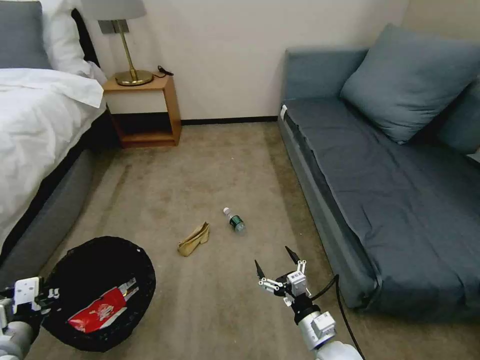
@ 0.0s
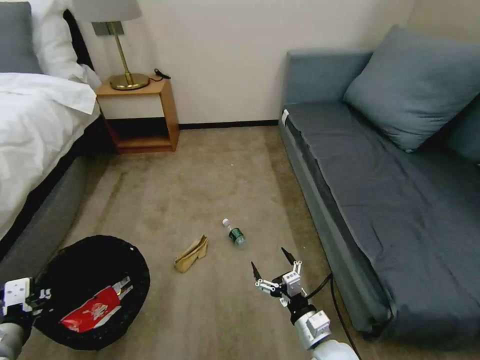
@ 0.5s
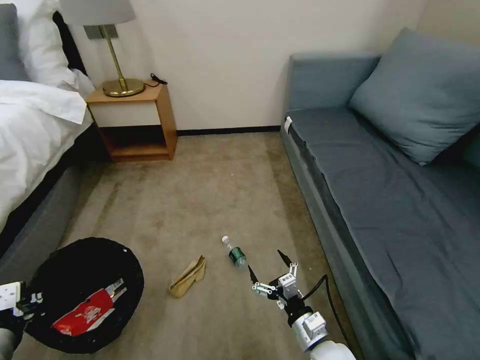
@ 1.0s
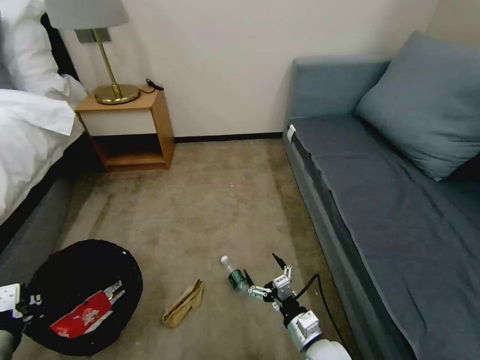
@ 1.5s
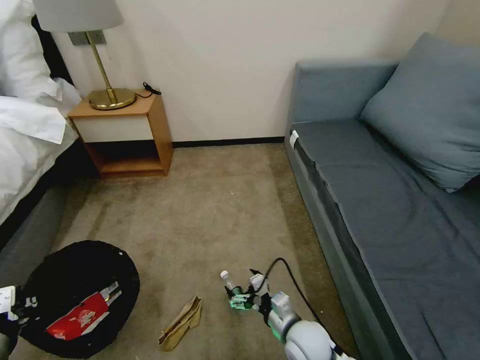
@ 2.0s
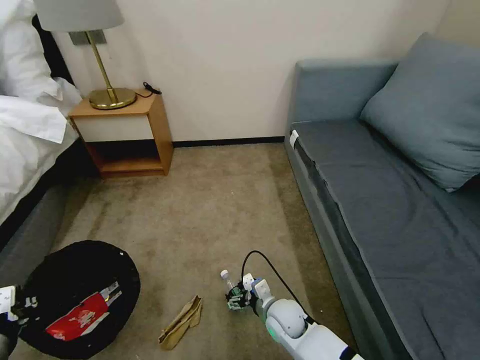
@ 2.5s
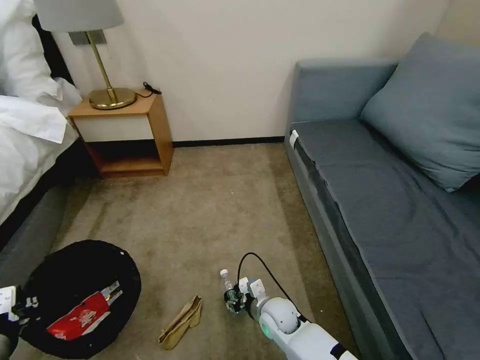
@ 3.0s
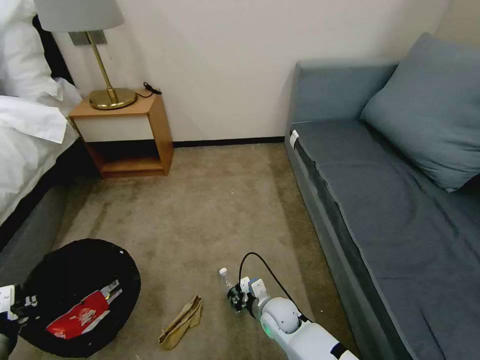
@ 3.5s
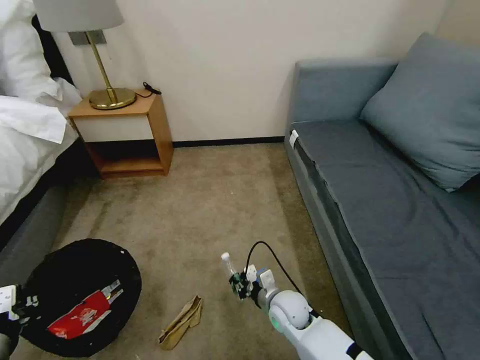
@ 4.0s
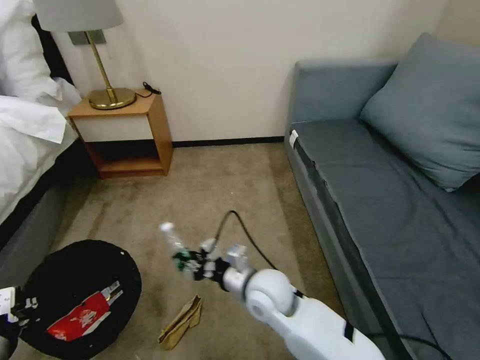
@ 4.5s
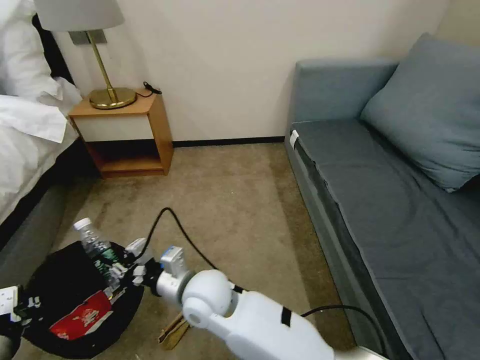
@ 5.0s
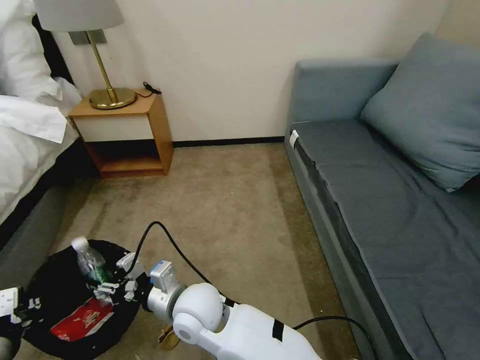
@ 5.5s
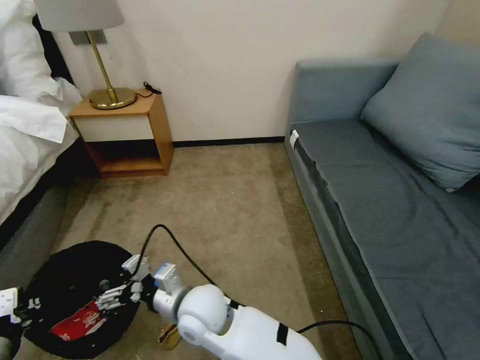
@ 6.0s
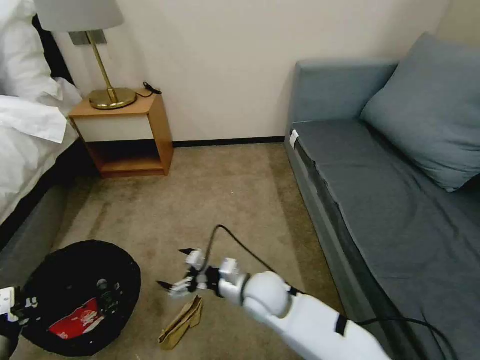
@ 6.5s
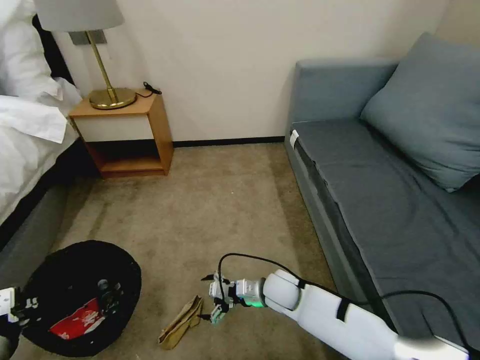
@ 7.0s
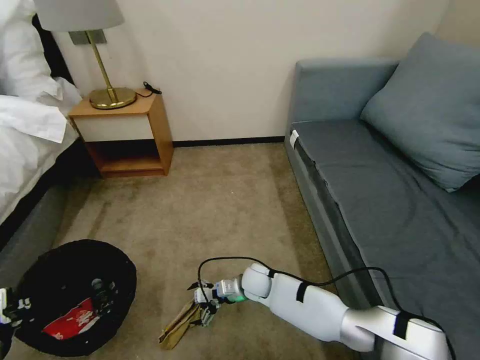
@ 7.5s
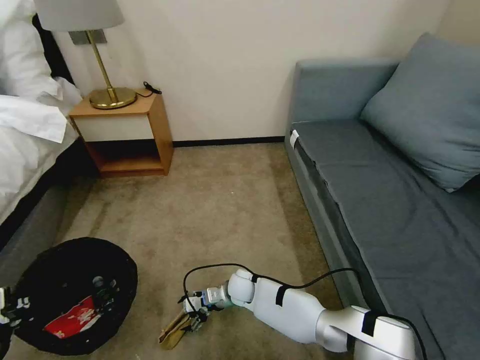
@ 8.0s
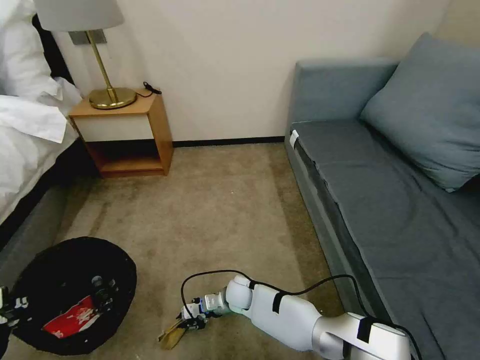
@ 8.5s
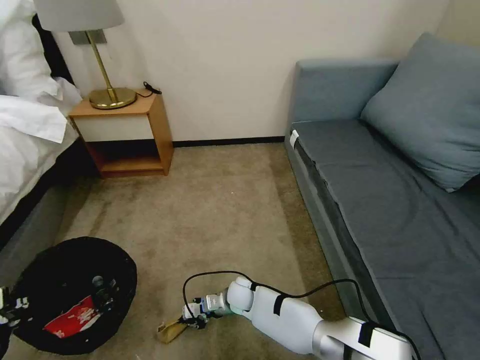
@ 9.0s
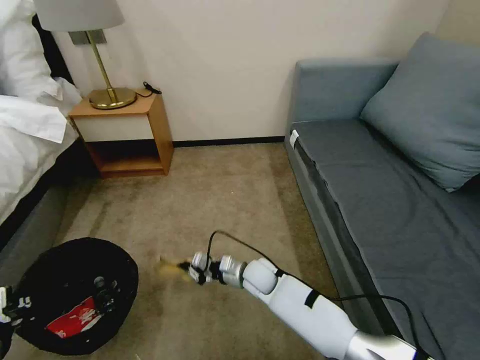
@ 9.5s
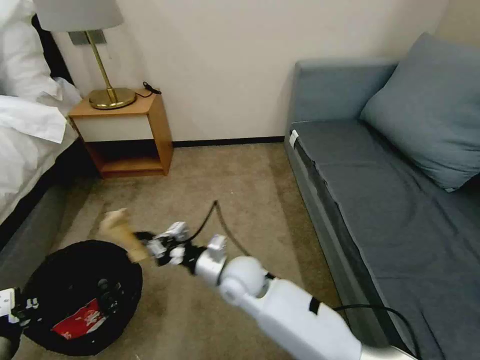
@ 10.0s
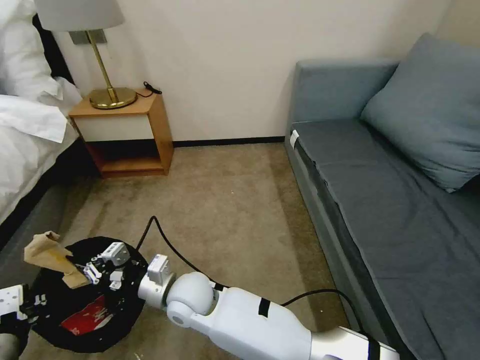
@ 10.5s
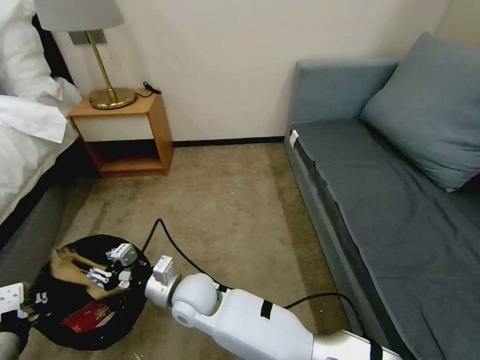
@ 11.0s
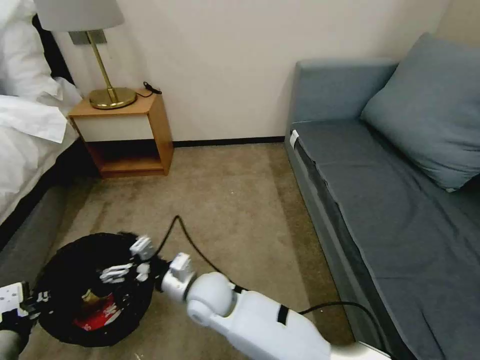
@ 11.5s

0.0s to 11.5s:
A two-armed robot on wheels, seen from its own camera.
Task of the whole recording: Pick up the trash bin, then pick up the garbage on the floor and place it into the trash bin.
0.0s to 2.0s: The right gripper travels to the left by about 5 cm.
2.0s to 4.0s: The right gripper travels forward by about 10 cm, and closes up.
4.0s to 6.0s: The right gripper is displaced to the left and upward by roughly 25 cm, and opens up.
6.0s to 7.5s: The right gripper goes some 25 cm downward, to the right and forward.
7.5s to 9.5s: The right gripper closes its fingers.
9.5s to 11.5s: The right gripper travels to the left, upward and backward by roughly 20 cm, and opens its fingers.

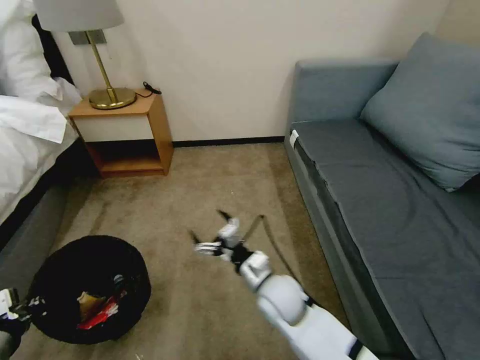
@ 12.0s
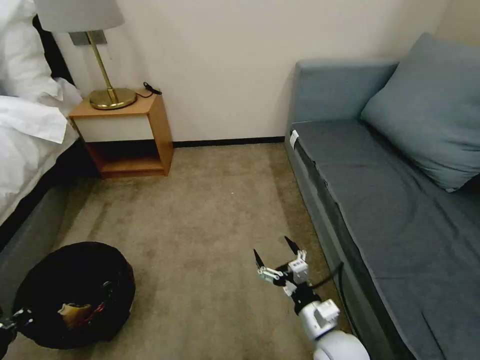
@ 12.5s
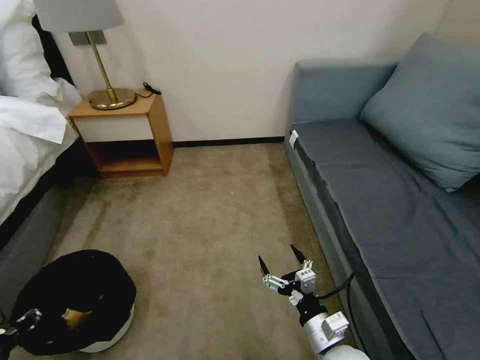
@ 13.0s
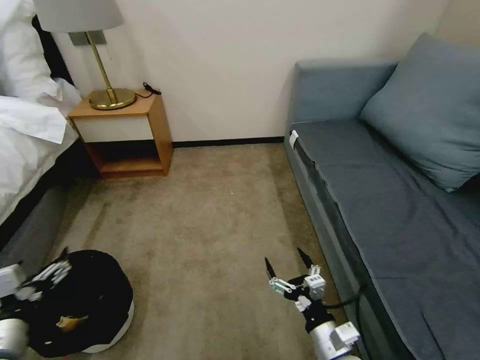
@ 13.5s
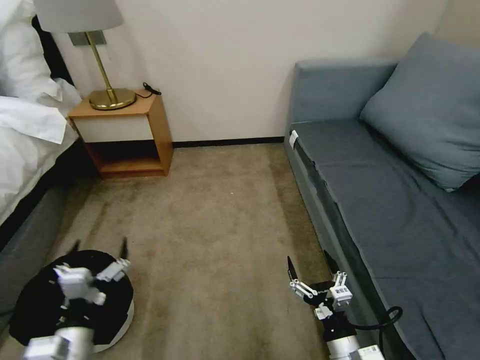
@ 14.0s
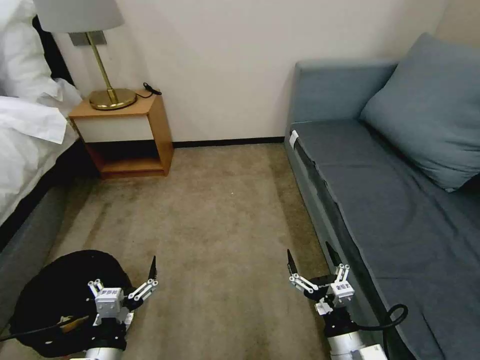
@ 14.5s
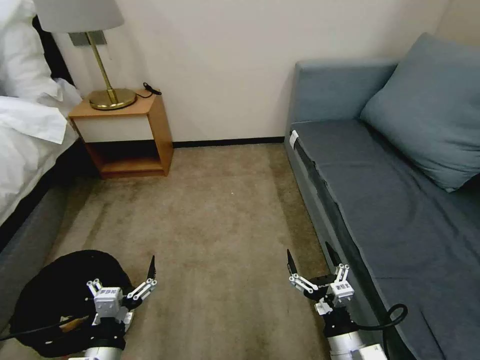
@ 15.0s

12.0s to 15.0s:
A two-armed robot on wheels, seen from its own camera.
Task of the whole recording: Pick up the trash bin, then pick up the garbage on the floor and place it into the trash bin.
12.0s to 13.5s: The right gripper goes about 20 cm backward and to the right. The left gripper opens its fingers.
13.5s to 15.0s: The left gripper heads to the right and downward, covering some 15 cm.

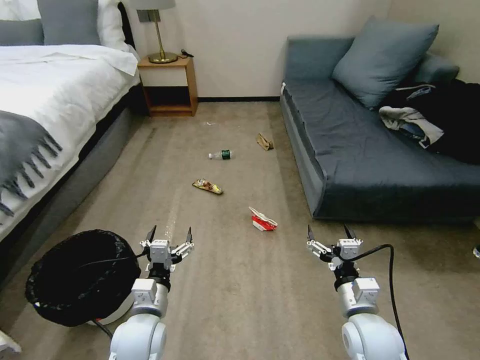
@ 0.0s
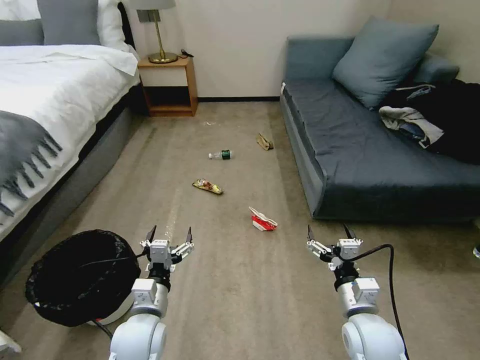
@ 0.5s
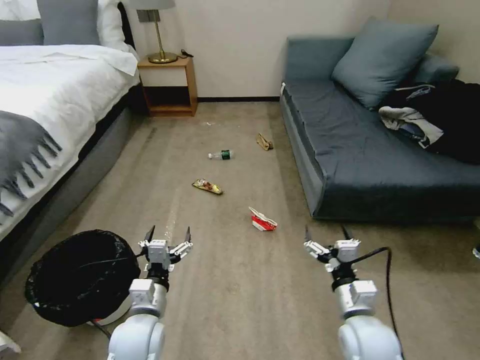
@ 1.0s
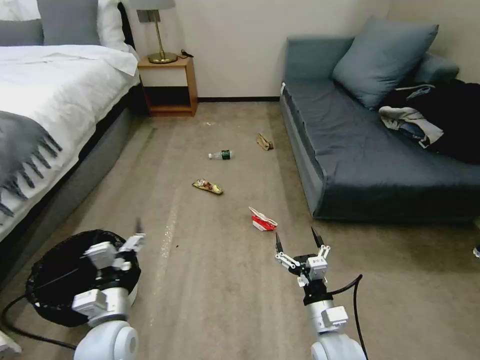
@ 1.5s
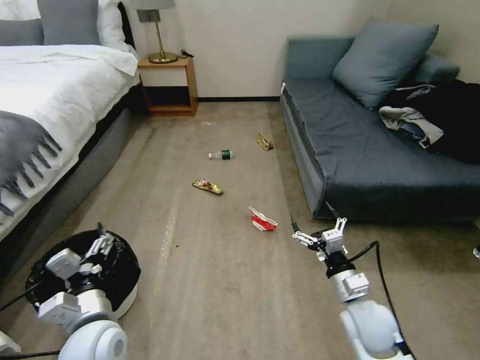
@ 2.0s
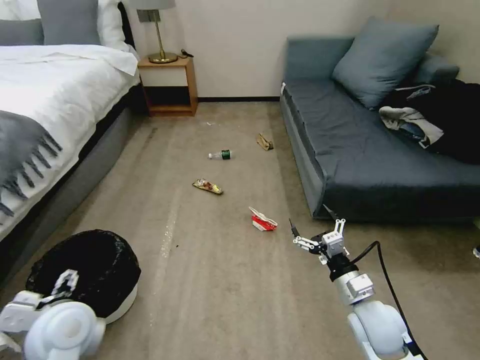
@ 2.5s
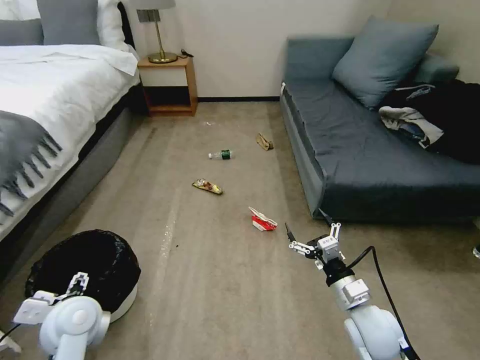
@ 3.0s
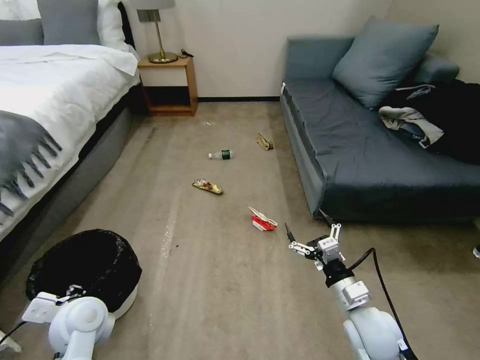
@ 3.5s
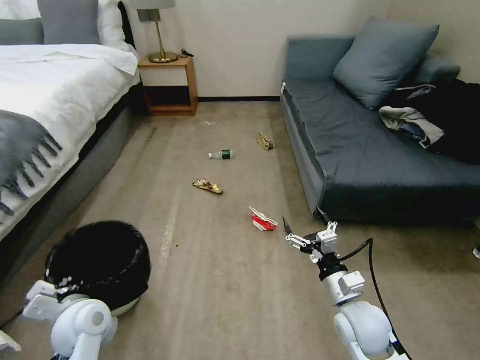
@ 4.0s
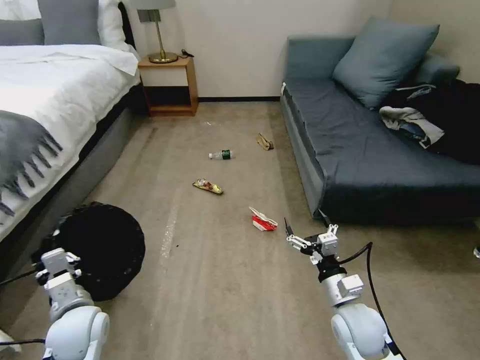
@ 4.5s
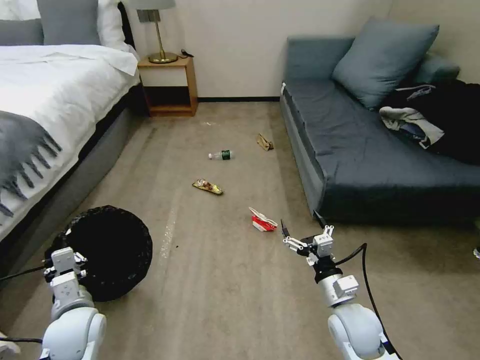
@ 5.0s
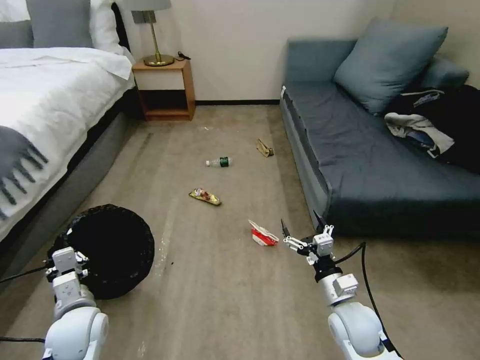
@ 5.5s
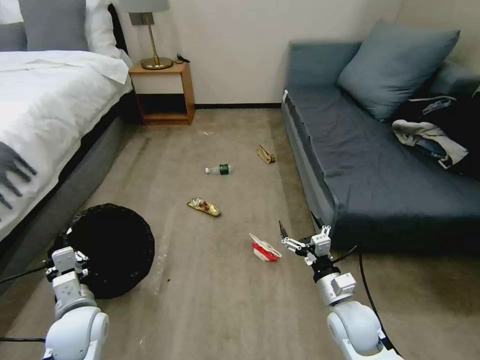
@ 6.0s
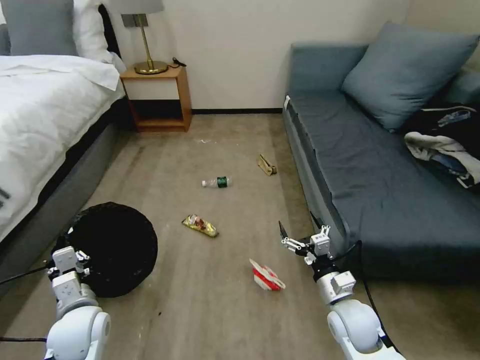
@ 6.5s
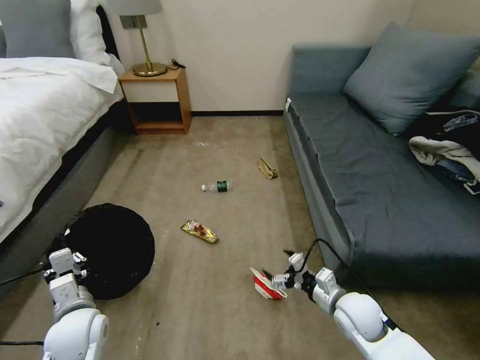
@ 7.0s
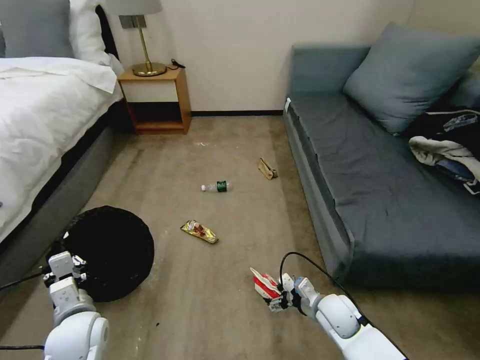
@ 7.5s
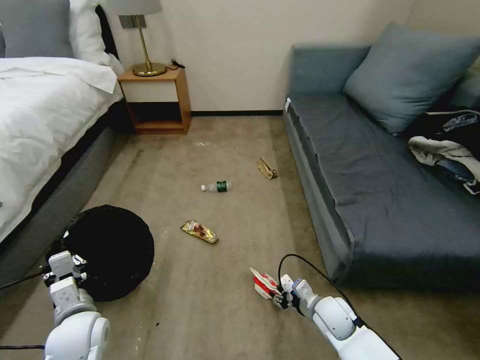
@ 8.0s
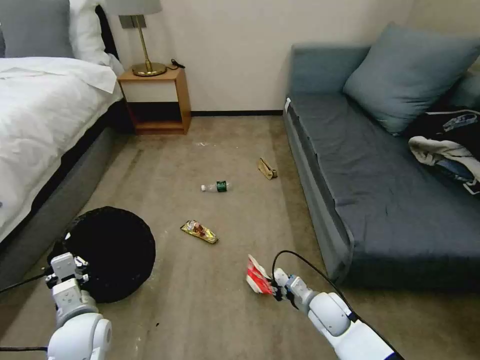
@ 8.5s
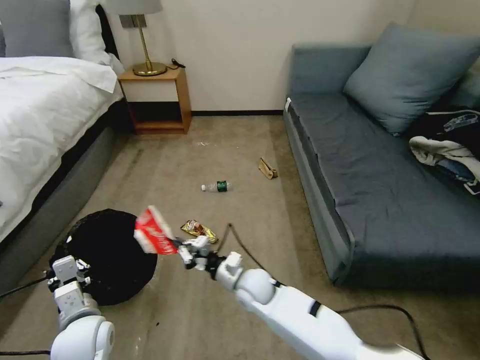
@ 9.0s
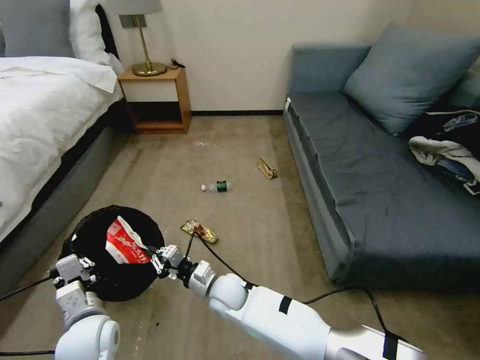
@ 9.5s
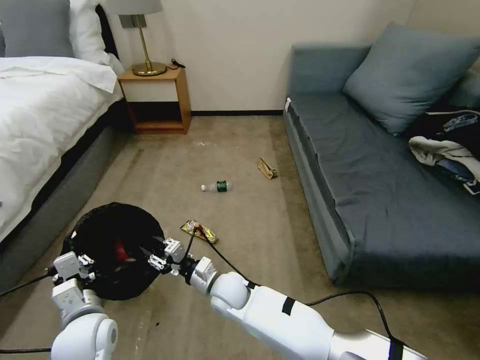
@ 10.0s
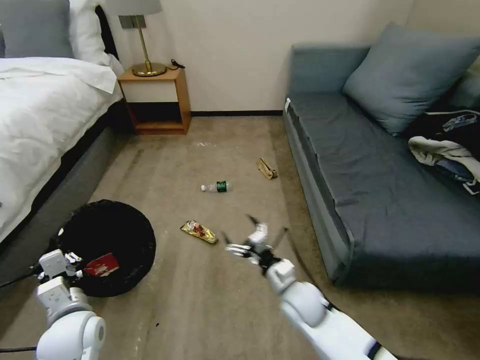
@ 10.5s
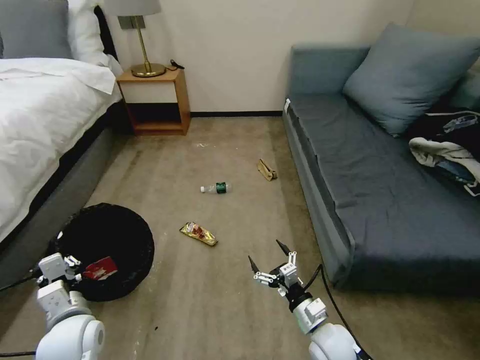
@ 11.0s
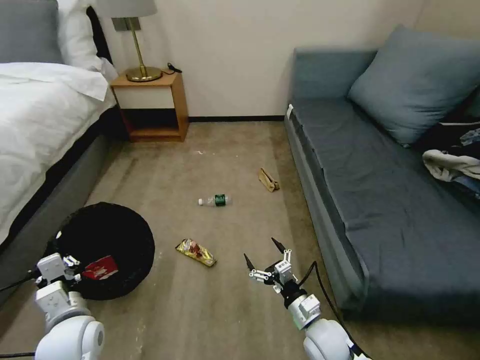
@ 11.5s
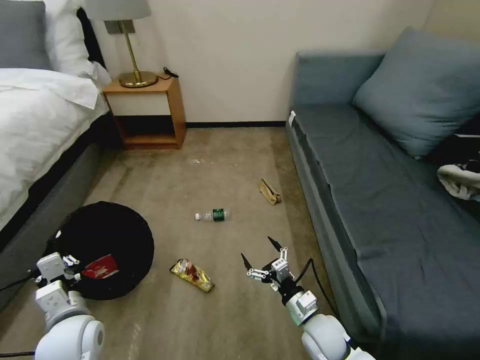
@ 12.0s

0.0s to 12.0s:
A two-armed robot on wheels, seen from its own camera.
Task of the whole recording: Pick up the trash bin, then pick up the garbage on the floor and place it into the trash bin.
2.0s to 4.0s: The left gripper goes approximately 5 cm to the left, and closes.
6.0s to 8.0s: The right gripper heads downward, covering approximately 10 cm, and closes its fingers.
8.0s to 10.0s: The right gripper goes about 25 cm to the left, and closes, then opens again.
10.0s to 12.0s: The right gripper heads to the right, covering some 25 cm, and opens.
